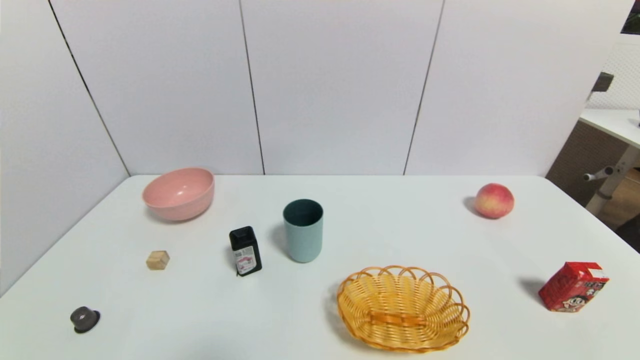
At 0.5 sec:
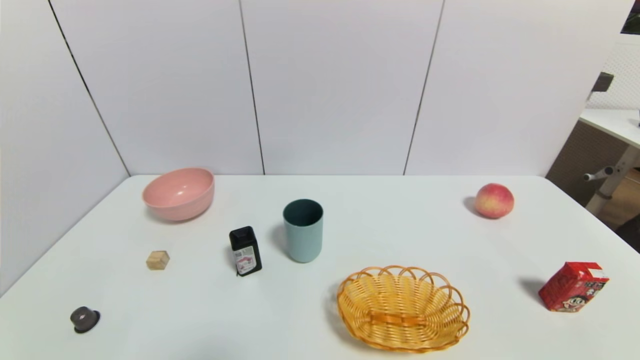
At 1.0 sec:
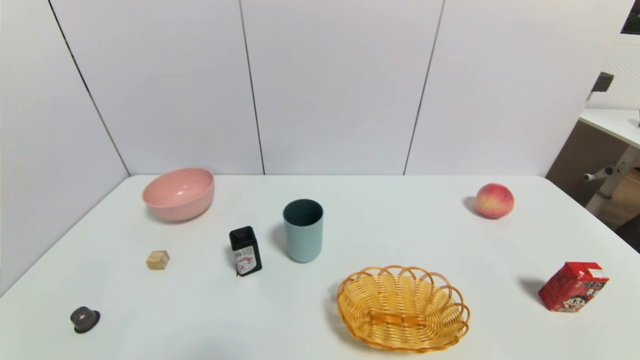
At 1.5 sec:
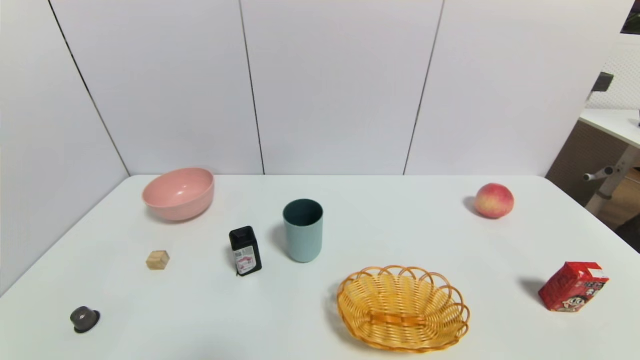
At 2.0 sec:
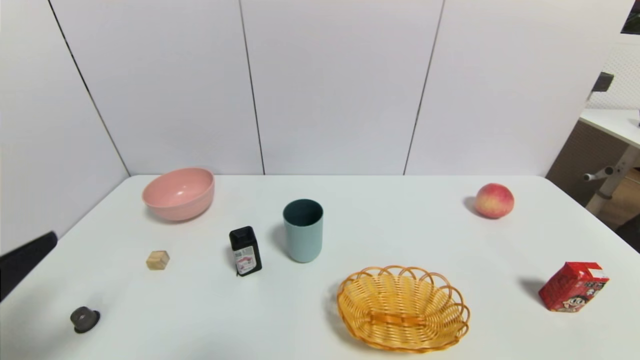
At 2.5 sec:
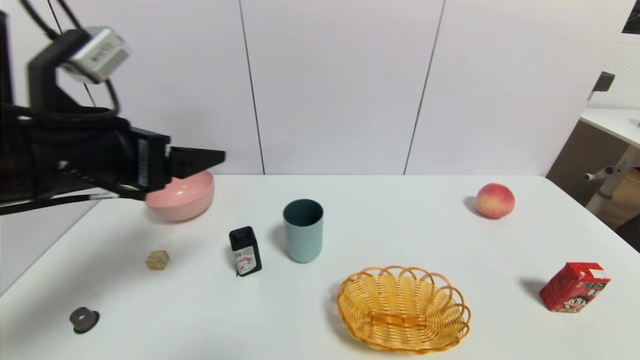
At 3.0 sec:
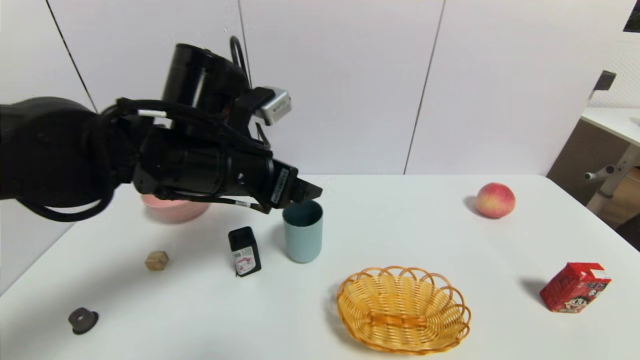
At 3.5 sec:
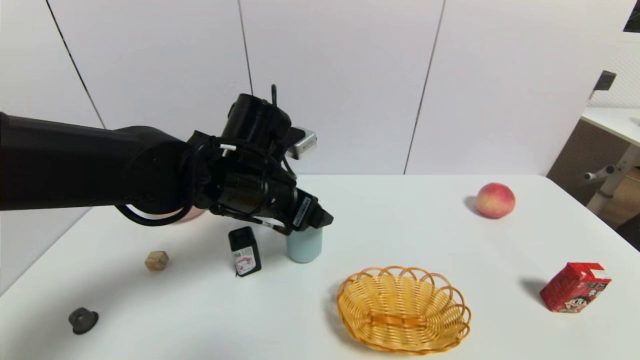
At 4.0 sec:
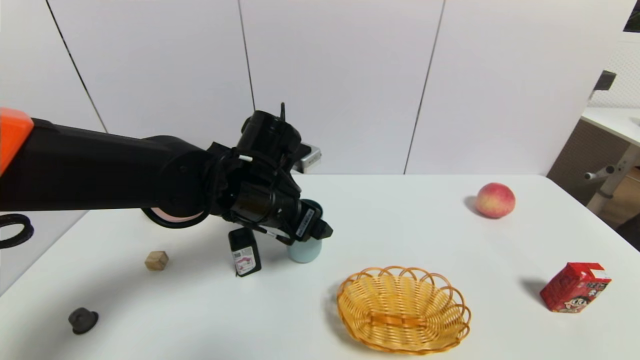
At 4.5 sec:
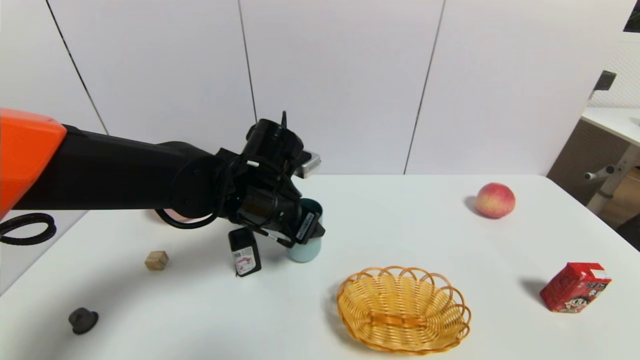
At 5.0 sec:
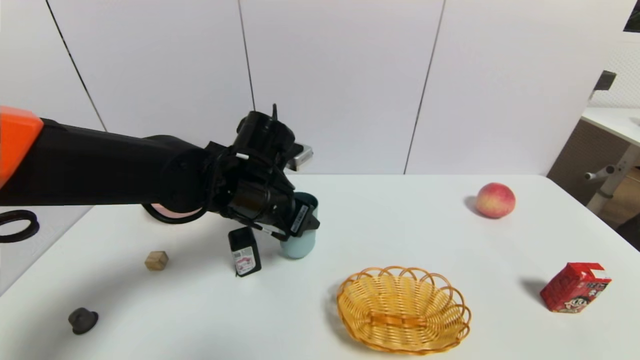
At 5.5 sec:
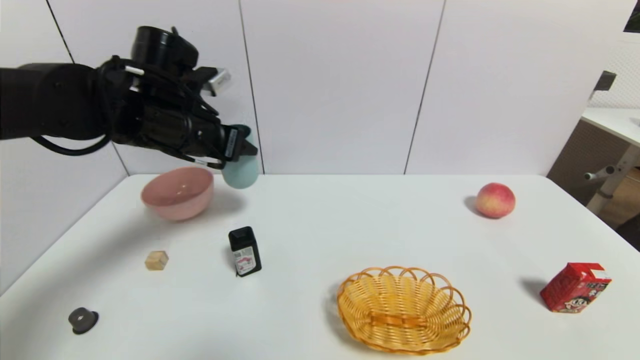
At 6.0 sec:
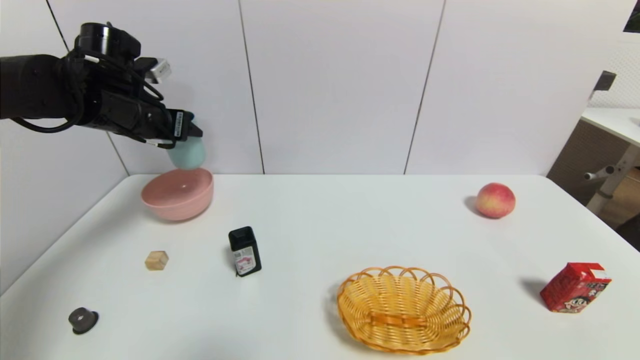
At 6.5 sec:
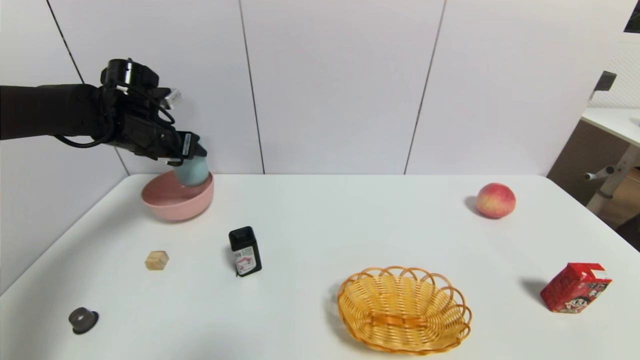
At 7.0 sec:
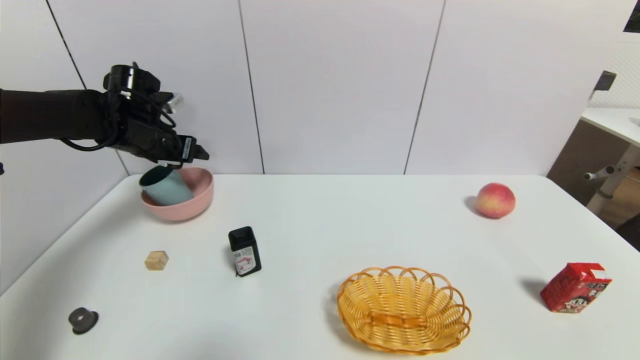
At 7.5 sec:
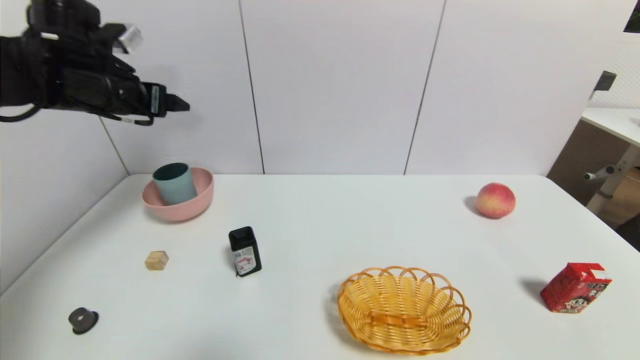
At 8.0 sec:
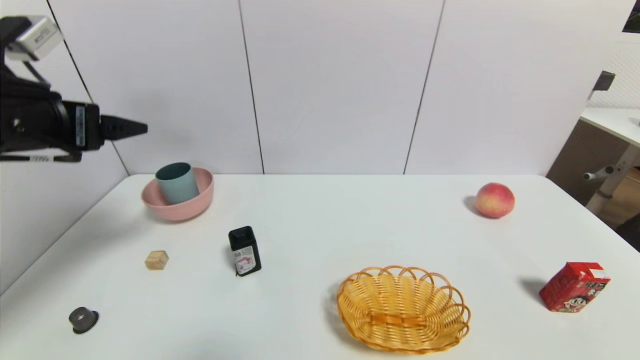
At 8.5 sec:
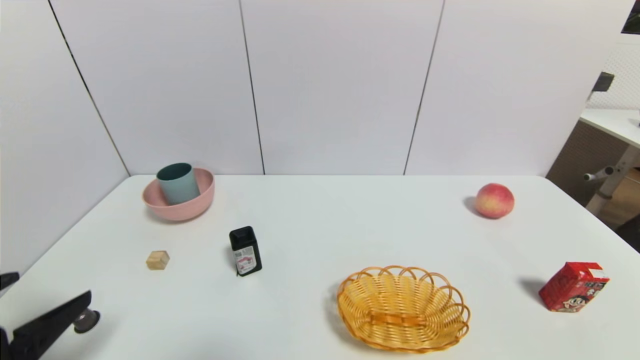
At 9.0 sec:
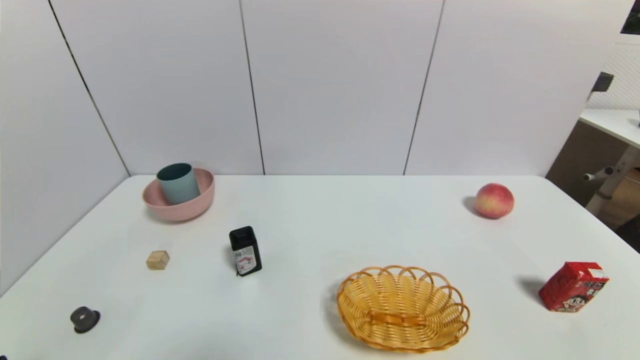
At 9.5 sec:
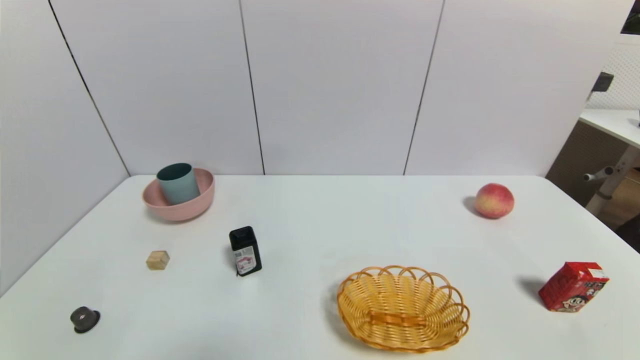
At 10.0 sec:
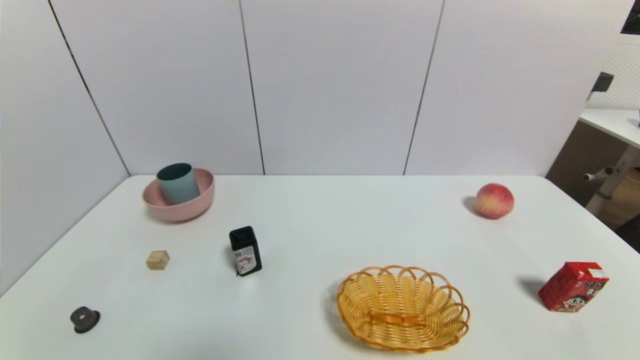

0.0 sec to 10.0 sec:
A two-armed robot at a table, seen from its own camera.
Task of the whole recording: use a gripper to pick the target object and place on the pink bowl.
Step, 0.0 sec to 4.5 sec: Grasp the blue cup with the left gripper.
Step, 5.0 sec to 7.0 sec: Place the blue cup on the pink bowl with the left gripper.
0.0 sec to 2.0 sec: The left gripper is displaced upward and forward by roughly 20 cm.
2.0 sec to 4.0 sec: The left gripper heads forward and to the right, covering some 30 cm.
4.0 sec to 6.0 sec: The left gripper travels to the left, forward and upward by approximately 25 cm, and closes its fingers.
6.0 sec to 8.0 sec: The left gripper goes approximately 15 cm backward, and opens up.
8.0 sec to 10.0 sec: The left gripper goes some 35 cm downward and backward.

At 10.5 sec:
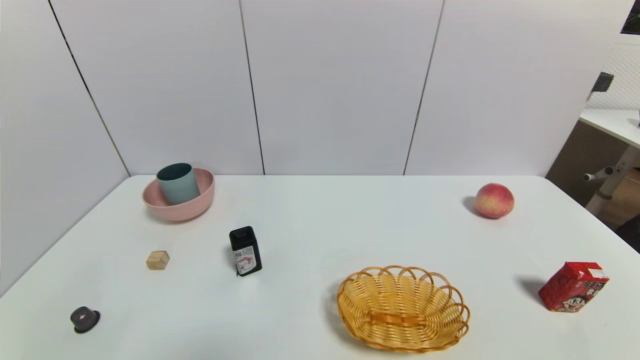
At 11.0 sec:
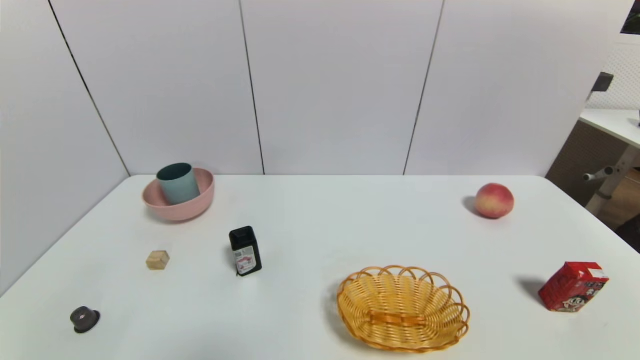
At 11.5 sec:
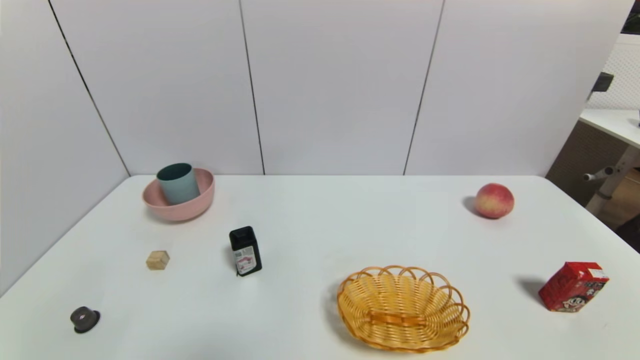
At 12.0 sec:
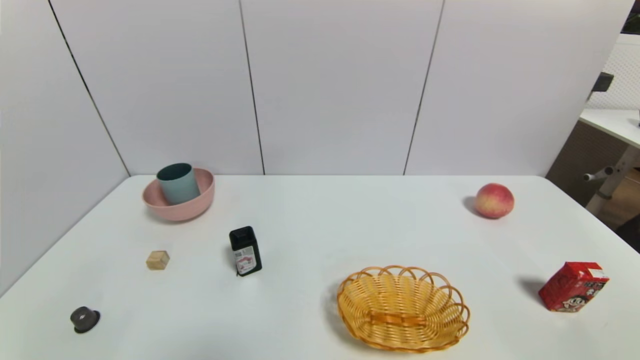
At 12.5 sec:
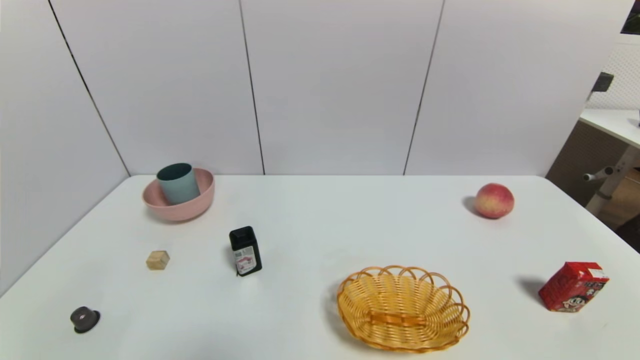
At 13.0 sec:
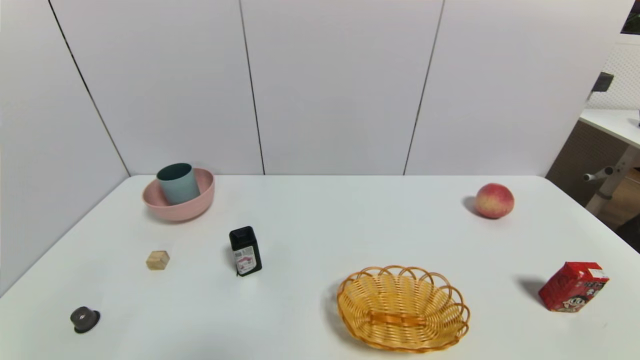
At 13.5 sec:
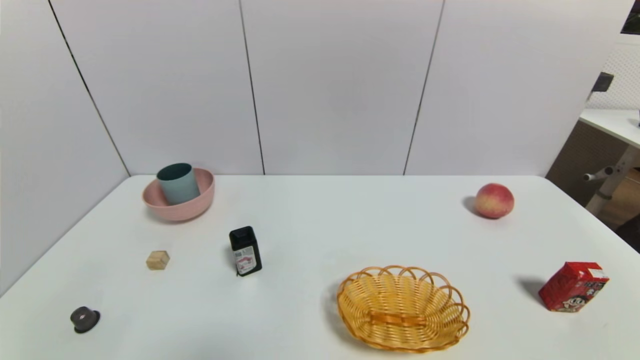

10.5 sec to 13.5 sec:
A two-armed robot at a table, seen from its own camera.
Task of the whole recording: use a gripper to pick the target object and place on the pink bowl.
10.5 sec to 13.5 sec: Both grippers stay put.
